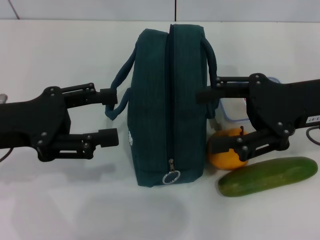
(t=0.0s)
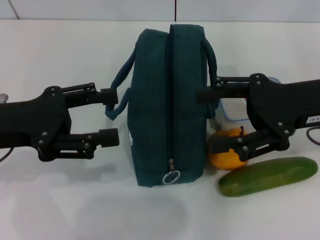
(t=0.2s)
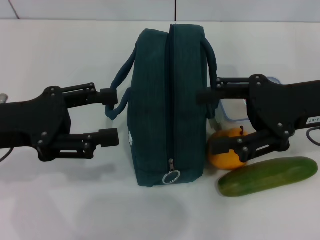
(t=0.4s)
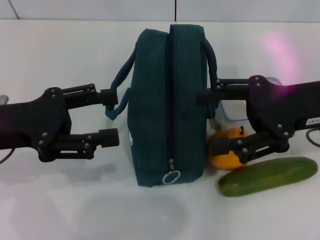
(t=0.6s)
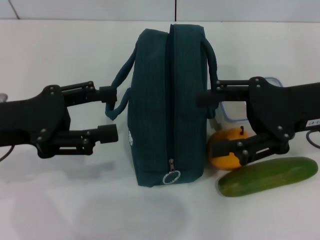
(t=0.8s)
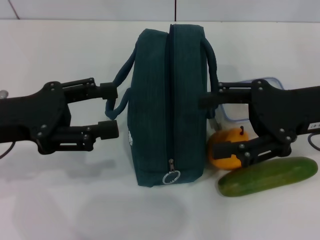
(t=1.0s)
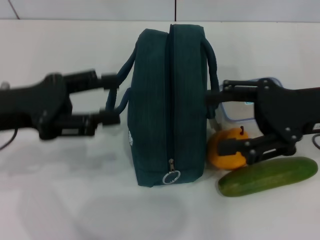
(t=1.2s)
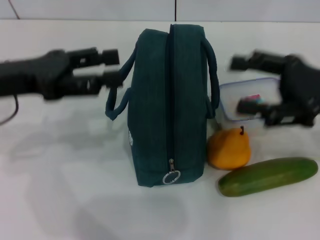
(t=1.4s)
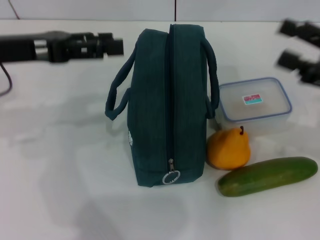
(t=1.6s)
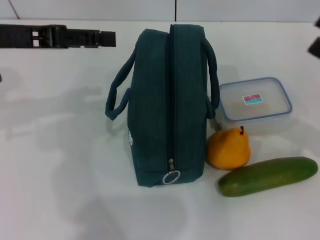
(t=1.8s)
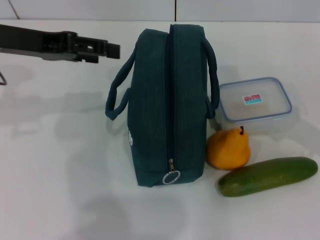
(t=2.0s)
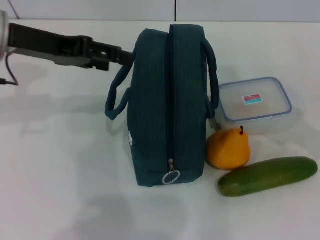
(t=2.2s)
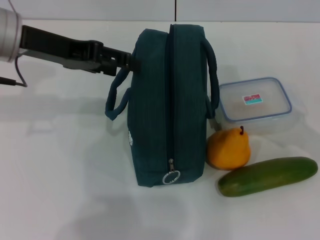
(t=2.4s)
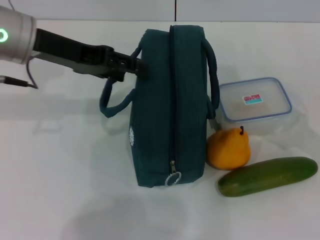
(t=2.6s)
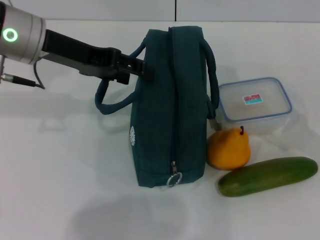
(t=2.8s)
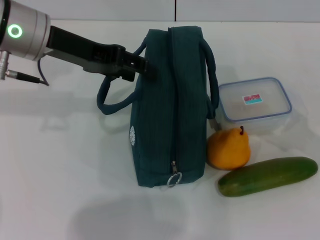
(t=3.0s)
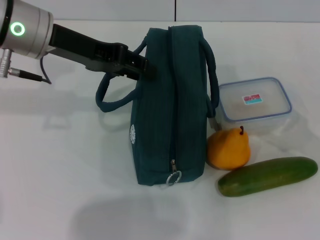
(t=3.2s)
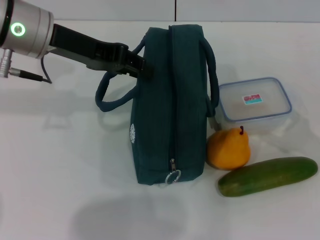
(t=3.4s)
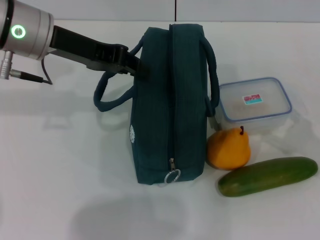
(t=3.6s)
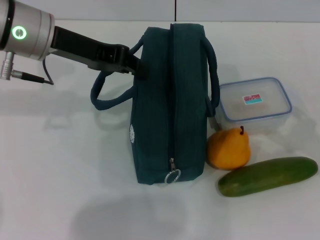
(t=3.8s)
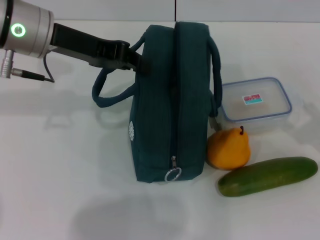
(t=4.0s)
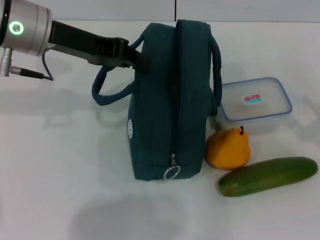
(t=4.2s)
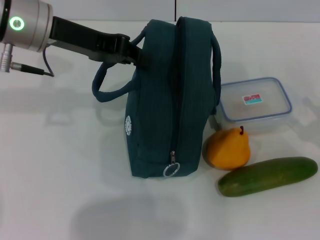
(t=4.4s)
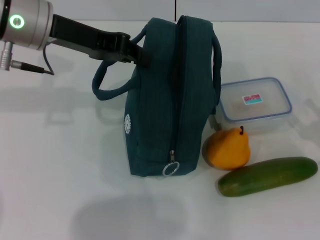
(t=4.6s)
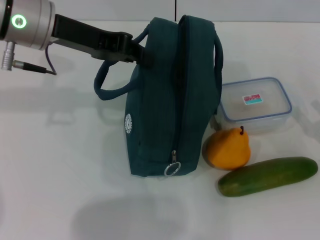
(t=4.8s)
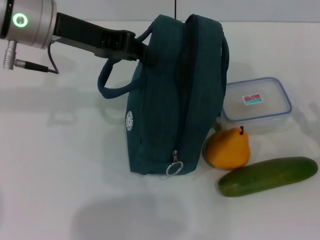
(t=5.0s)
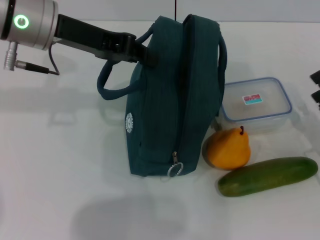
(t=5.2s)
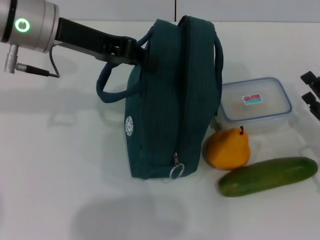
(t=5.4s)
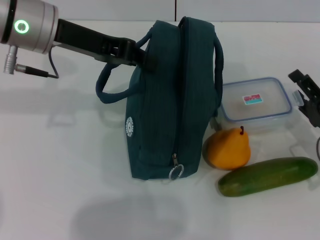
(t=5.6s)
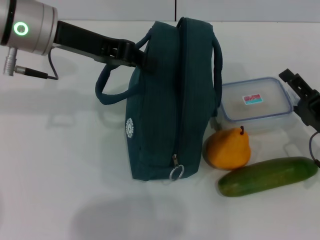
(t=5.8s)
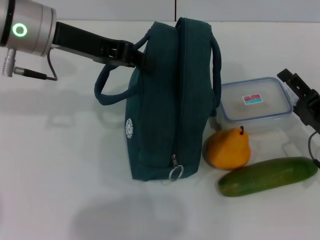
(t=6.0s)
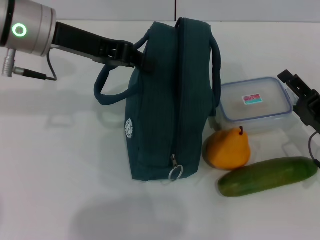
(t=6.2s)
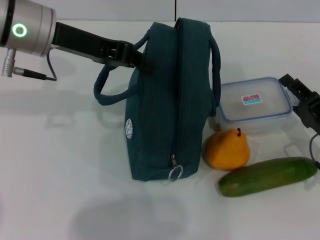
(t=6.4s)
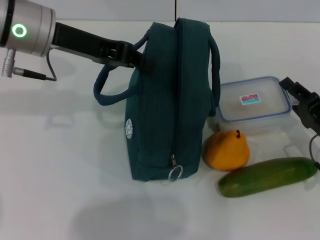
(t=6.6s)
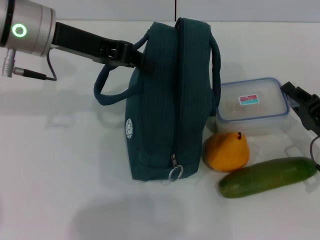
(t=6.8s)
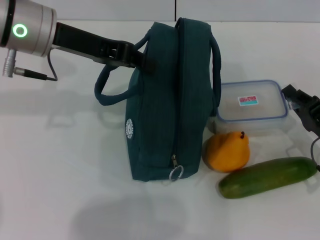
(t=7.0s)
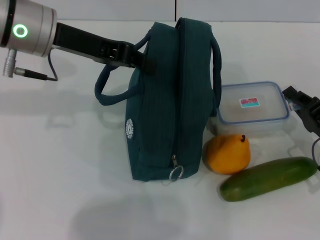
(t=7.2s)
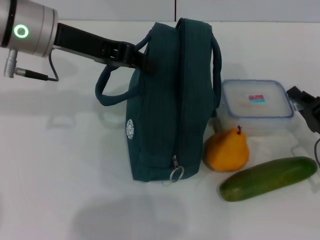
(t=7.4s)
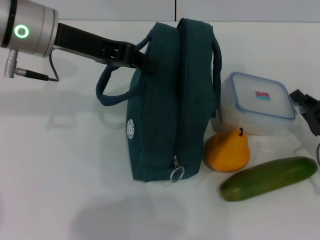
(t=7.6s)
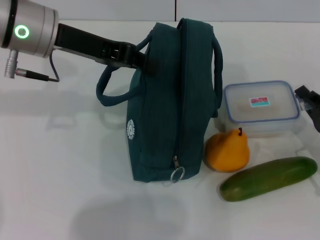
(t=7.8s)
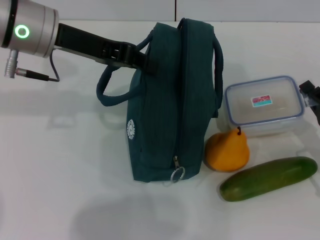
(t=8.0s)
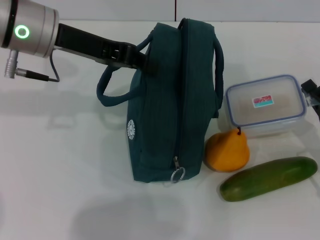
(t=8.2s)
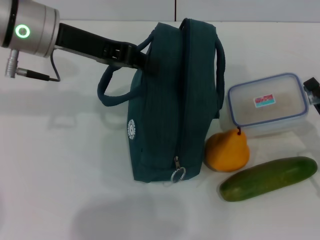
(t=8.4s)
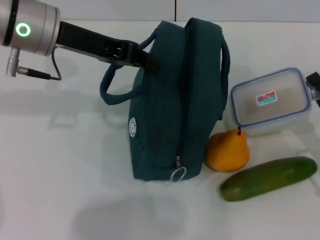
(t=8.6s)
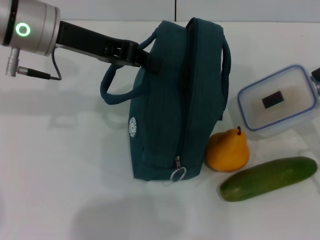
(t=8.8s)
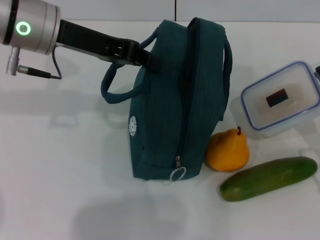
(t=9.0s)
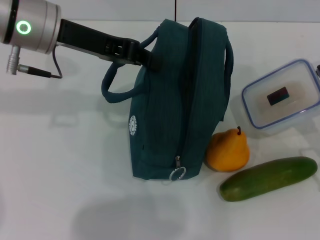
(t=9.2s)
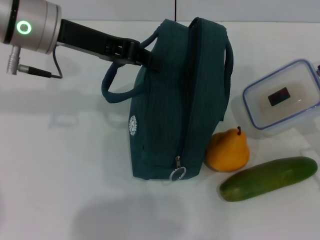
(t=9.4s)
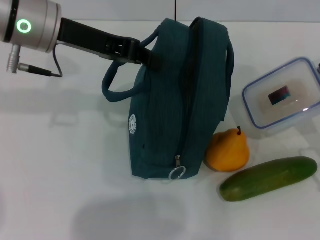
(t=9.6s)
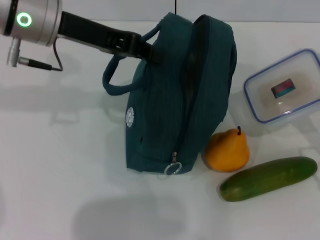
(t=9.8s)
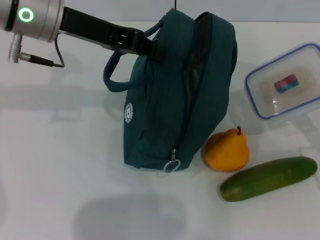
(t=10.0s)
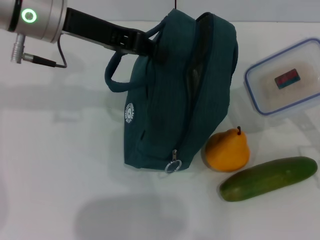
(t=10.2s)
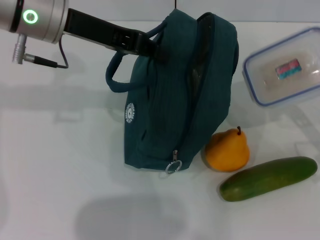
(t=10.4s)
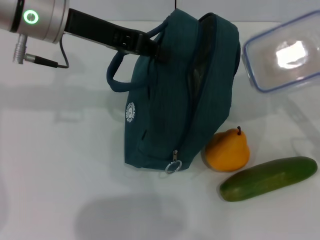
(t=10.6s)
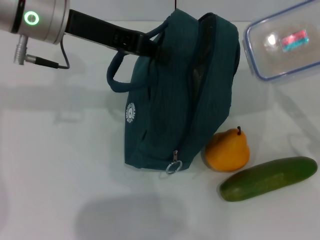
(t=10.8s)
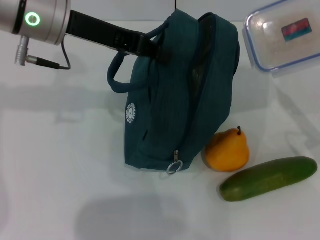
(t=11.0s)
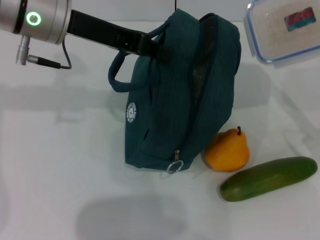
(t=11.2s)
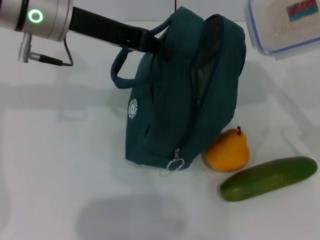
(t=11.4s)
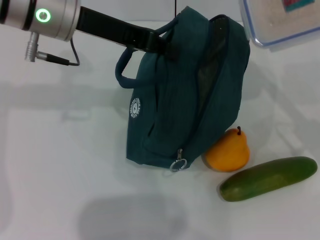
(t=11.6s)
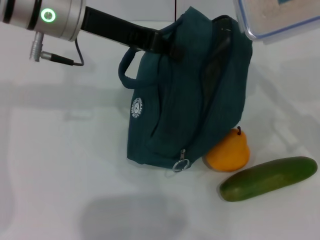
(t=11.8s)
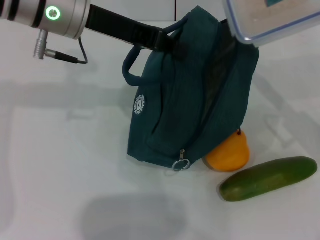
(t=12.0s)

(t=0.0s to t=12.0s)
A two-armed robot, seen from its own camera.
Step, t=0.0s - t=3.8s: Hold the lunch bag with your left hand.
Step, t=4.0s - t=7.6s: Pick up the lunch box with your right hand.
t=0.0s - t=1.6s: The right gripper heads to the right, covering about 10 cm, while the left gripper moves forward, about 5 cm.
t=1.6s - t=3.0s: The left gripper heads to the right, covering roughly 5 cm; the right gripper moves downward, some 5 cm.
t=3.0s - t=4.4s: The left gripper closes, while the right gripper shifts by some 5 cm.
t=4.4s - t=6.0s: The right gripper travels to the left by approximately 5 cm.
t=6.0s - t=7.6s: The right gripper closes.
t=7.6s - t=9.0s: There are only small adjustments of the grippers.
t=10.4s - t=12.0s: The right gripper is displaced upward by about 5 cm.

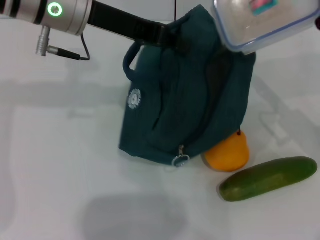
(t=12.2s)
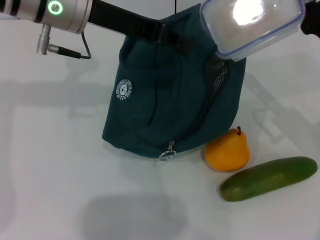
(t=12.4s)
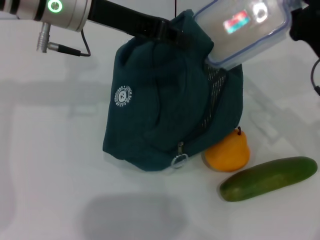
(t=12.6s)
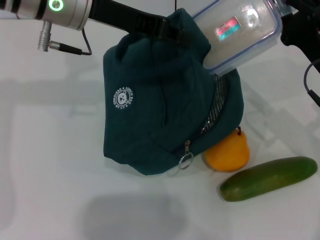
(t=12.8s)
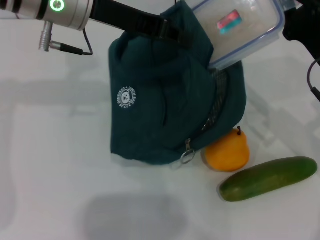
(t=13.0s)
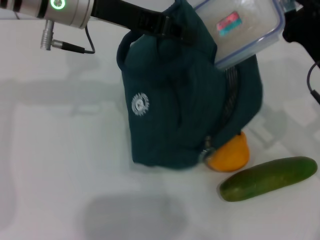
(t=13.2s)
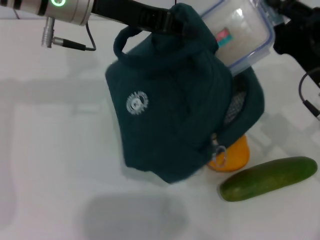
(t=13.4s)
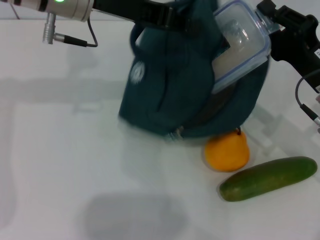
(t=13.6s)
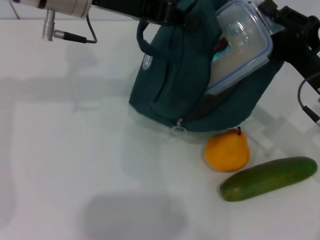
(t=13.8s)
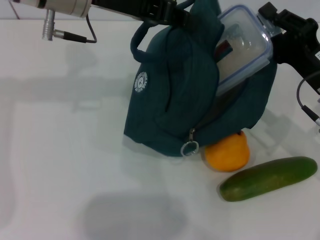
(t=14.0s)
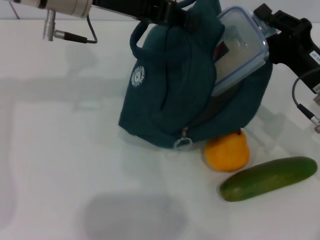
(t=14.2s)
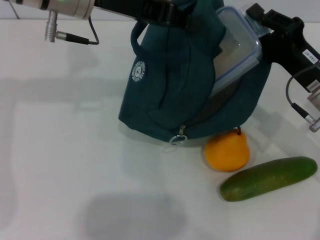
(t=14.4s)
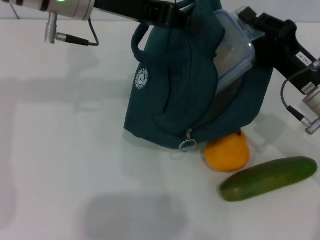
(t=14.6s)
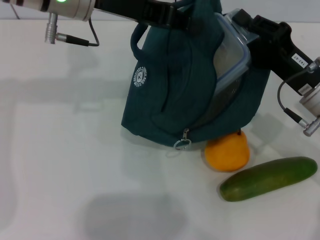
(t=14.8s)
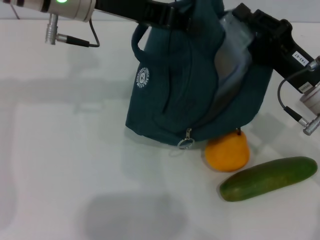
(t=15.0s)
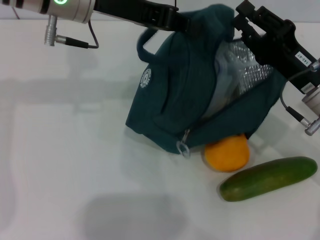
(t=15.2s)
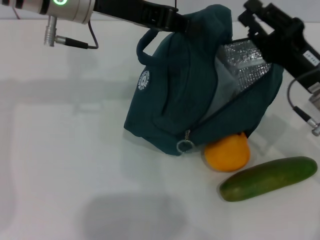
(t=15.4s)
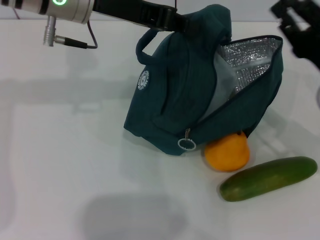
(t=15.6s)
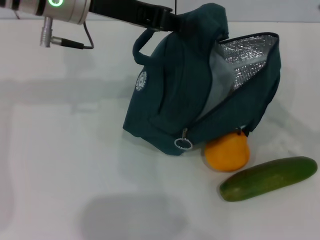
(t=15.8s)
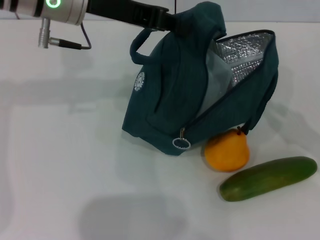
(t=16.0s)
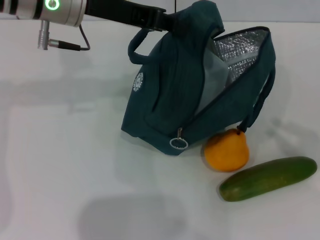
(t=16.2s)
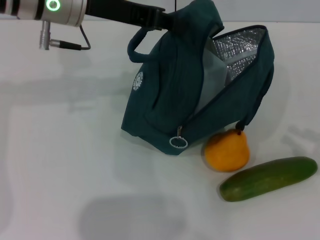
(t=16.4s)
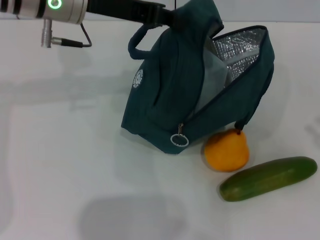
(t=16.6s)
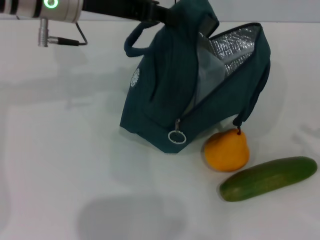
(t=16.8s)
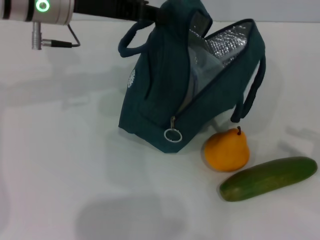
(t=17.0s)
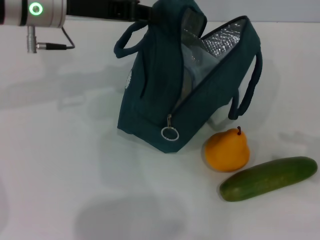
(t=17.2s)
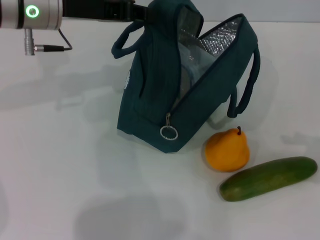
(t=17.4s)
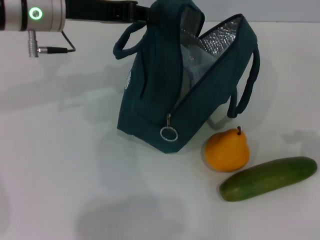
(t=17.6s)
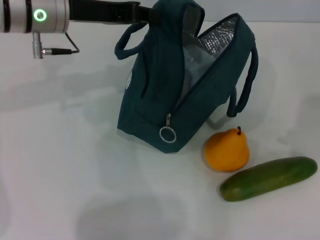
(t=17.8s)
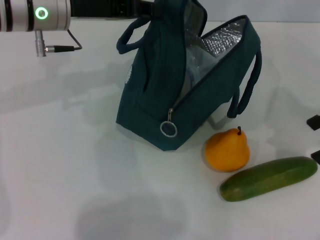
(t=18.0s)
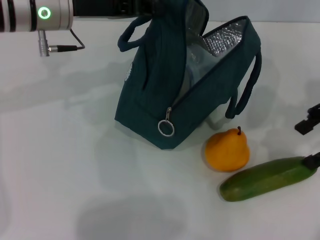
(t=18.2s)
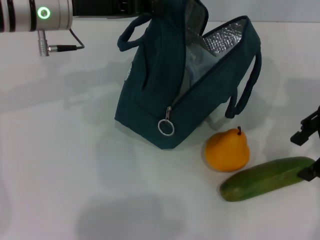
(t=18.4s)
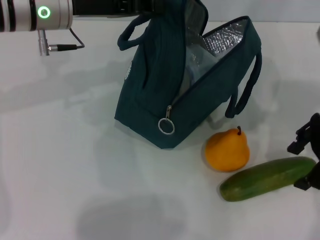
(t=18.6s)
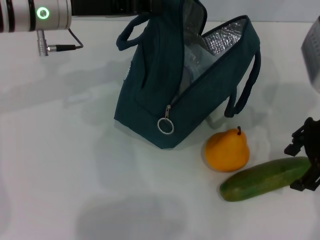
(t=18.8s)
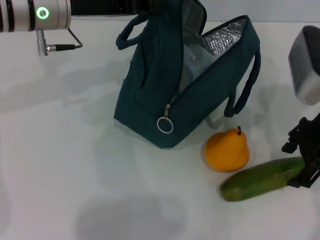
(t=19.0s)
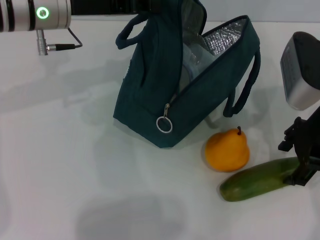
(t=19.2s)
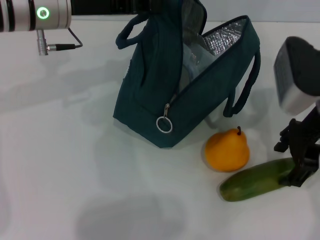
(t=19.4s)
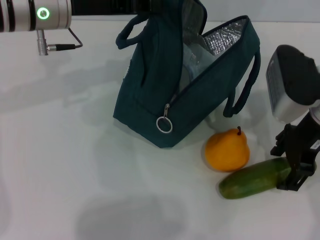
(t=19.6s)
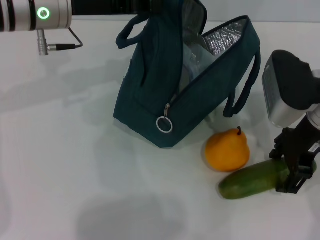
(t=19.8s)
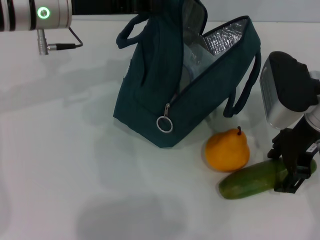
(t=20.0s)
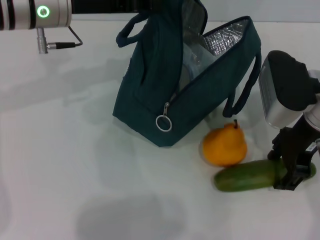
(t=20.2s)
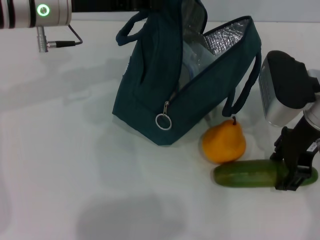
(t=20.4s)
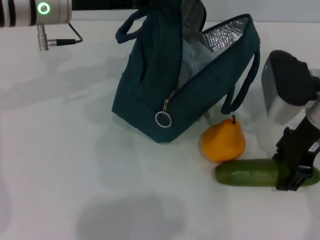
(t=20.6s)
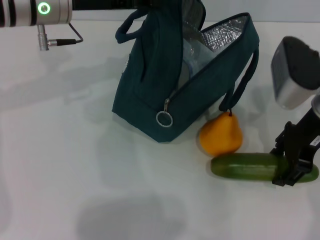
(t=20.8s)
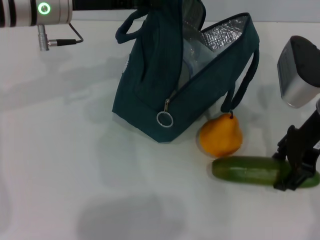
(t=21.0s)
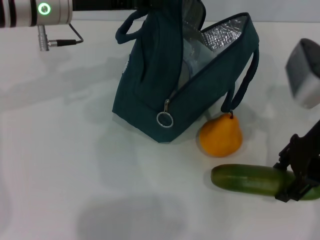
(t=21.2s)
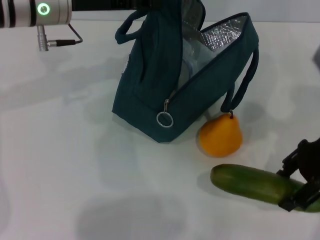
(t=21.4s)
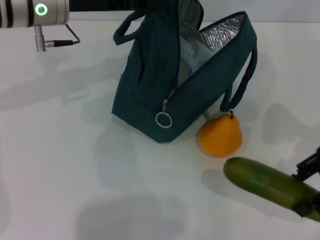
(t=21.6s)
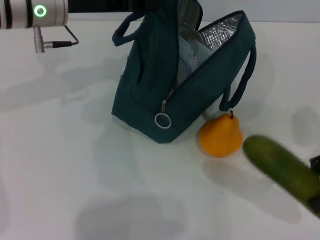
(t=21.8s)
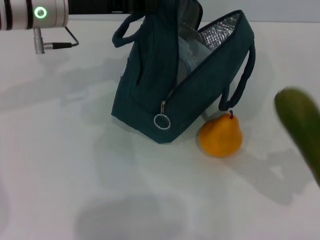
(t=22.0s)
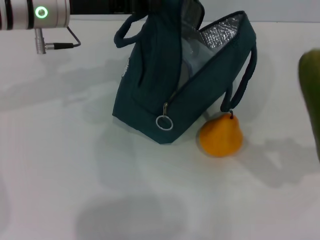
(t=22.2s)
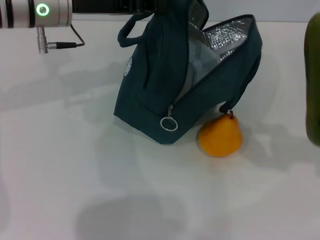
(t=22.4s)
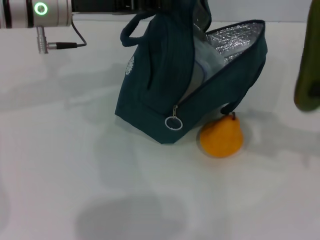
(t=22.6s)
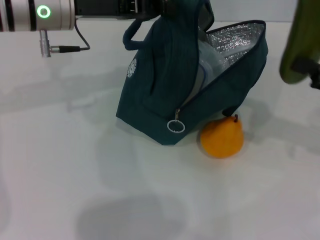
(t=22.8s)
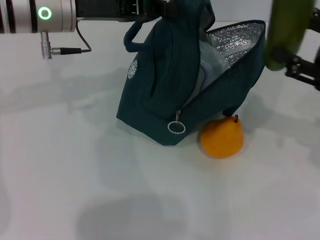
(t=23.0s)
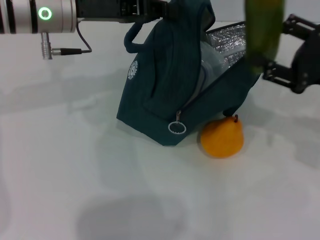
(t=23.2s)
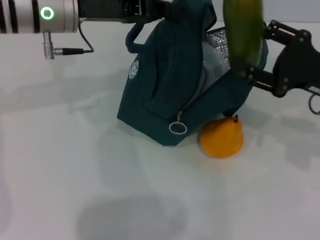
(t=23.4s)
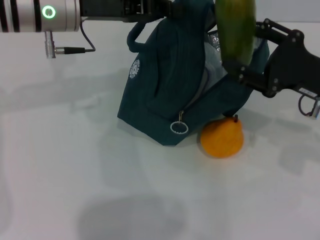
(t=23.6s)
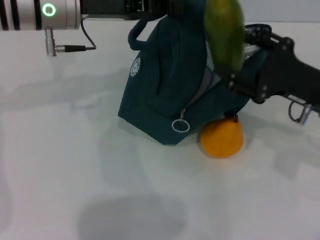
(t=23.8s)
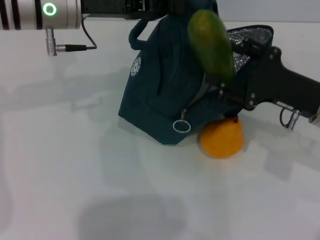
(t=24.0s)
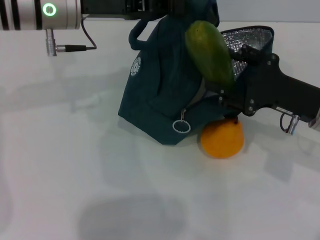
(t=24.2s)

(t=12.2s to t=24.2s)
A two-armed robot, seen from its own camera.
Step, t=12.2s - t=15.0s: Place the lunch box into the lunch bag with your right hand.
Step, t=15.2s - t=20.2s: Pick up the cucumber with your right hand.
t=13.8s - t=15.2s: The grippers move only a little.
t=15.2s - t=16.6s: The right gripper shifts roughly 25 cm to the right and backward.
t=16.6s - t=18.2s: The right gripper travels upward, to the left and forward by some 25 cm, and opens its fingers.
t=18.2s - t=19.8s: The right gripper moves to the left and downward, about 10 cm.
t=19.8s - t=21.2s: The grippers move only a little.
t=21.2s - t=22.6s: The right gripper moves to the right and backward, approximately 15 cm.
t=22.6s - t=24.2s: The right gripper travels to the left and downward by approximately 15 cm.
